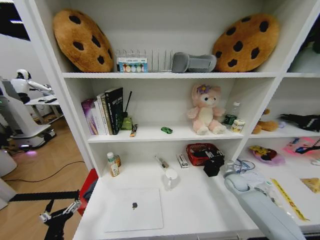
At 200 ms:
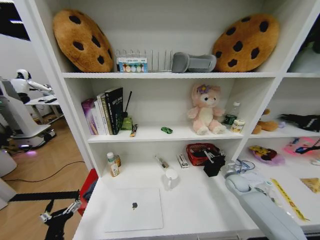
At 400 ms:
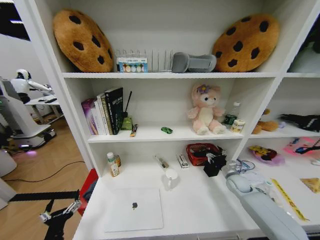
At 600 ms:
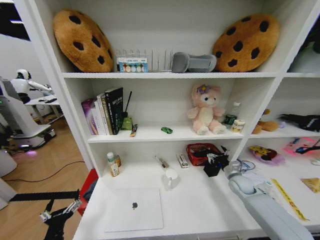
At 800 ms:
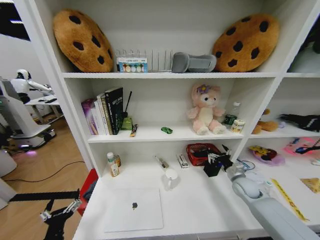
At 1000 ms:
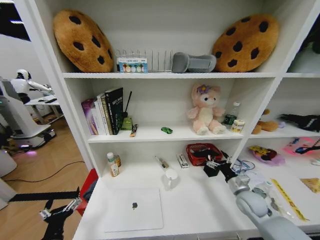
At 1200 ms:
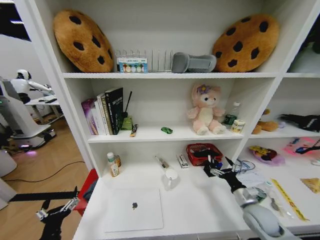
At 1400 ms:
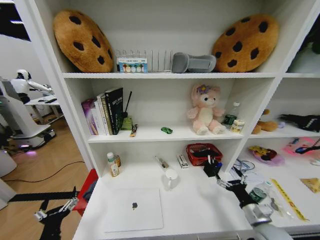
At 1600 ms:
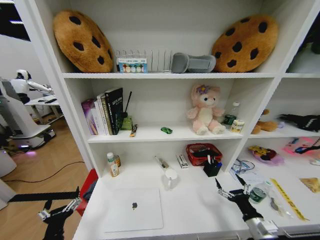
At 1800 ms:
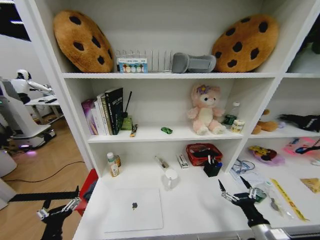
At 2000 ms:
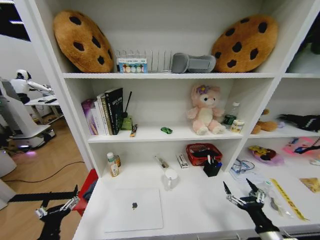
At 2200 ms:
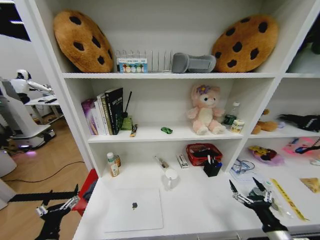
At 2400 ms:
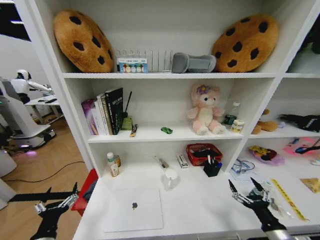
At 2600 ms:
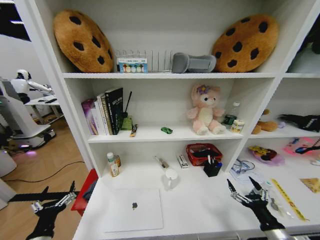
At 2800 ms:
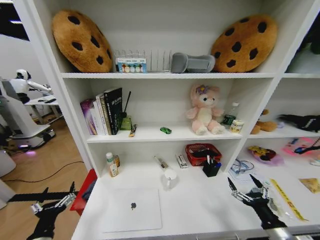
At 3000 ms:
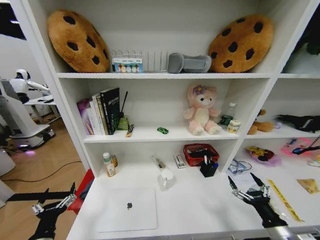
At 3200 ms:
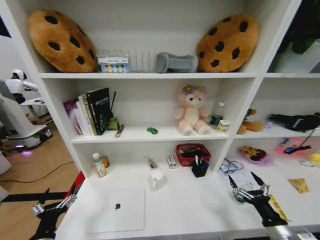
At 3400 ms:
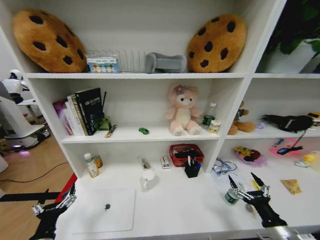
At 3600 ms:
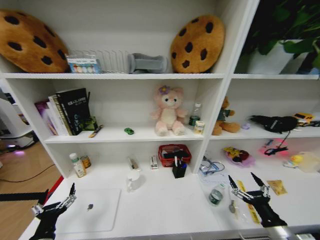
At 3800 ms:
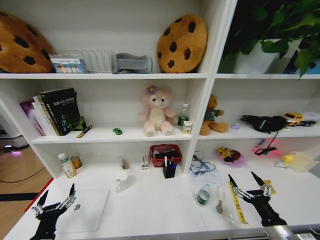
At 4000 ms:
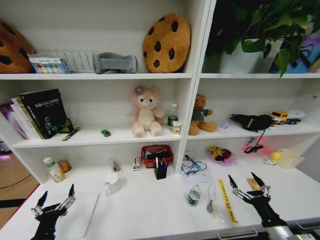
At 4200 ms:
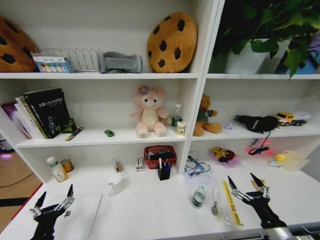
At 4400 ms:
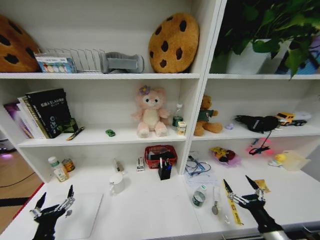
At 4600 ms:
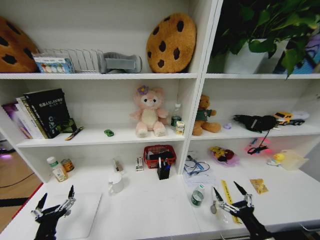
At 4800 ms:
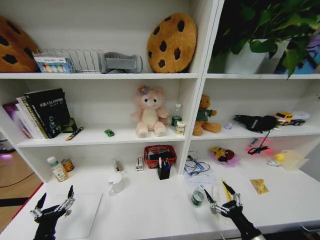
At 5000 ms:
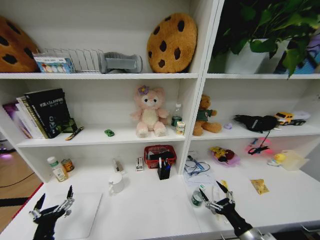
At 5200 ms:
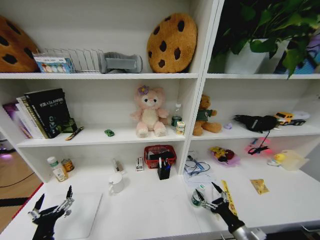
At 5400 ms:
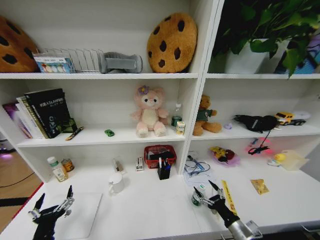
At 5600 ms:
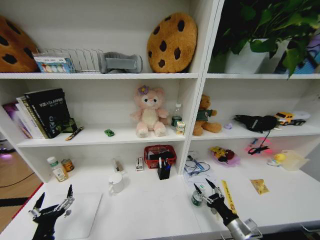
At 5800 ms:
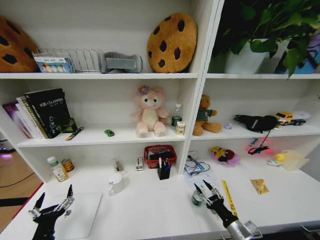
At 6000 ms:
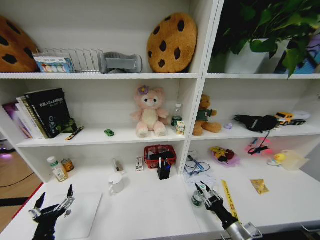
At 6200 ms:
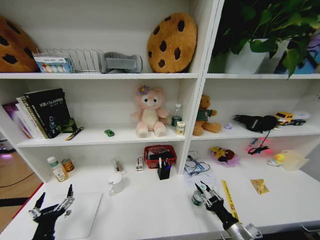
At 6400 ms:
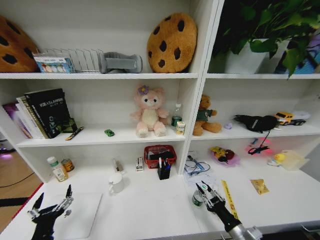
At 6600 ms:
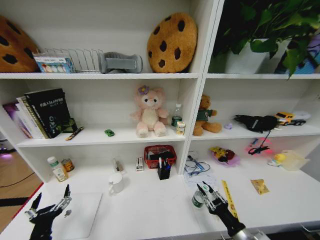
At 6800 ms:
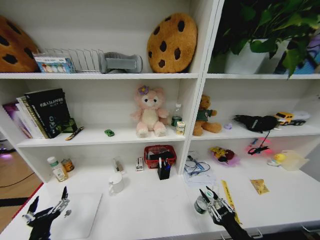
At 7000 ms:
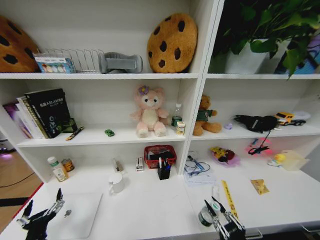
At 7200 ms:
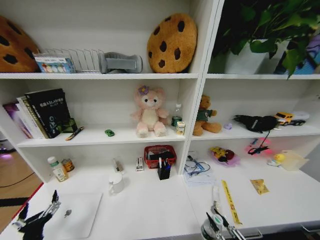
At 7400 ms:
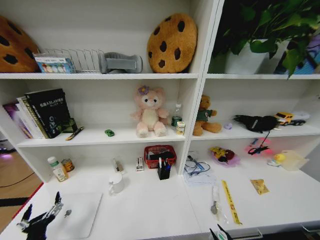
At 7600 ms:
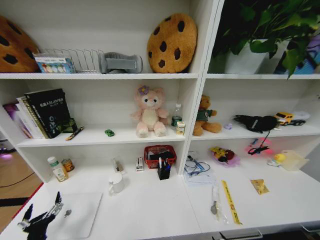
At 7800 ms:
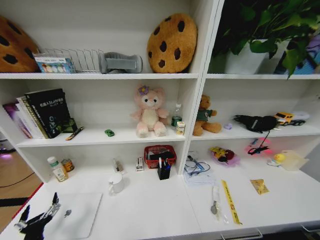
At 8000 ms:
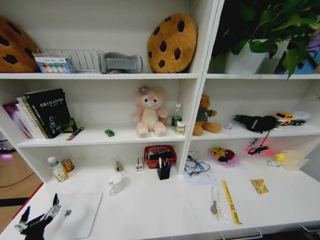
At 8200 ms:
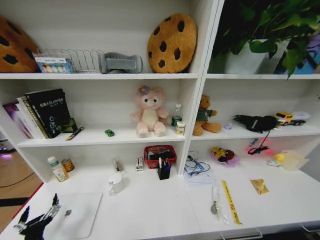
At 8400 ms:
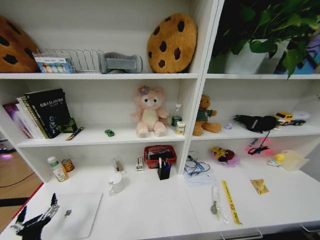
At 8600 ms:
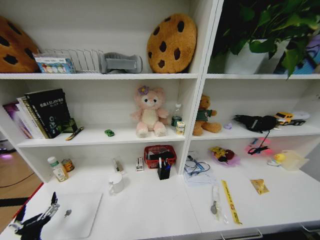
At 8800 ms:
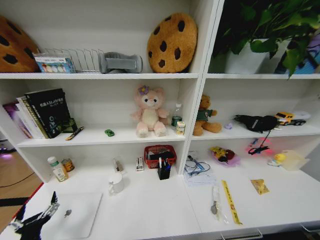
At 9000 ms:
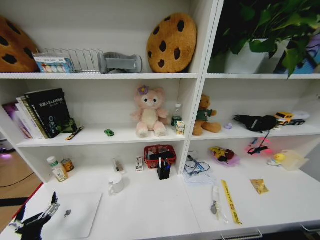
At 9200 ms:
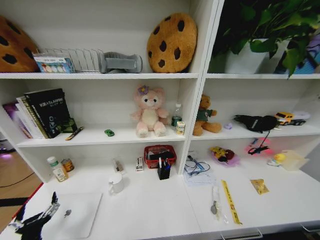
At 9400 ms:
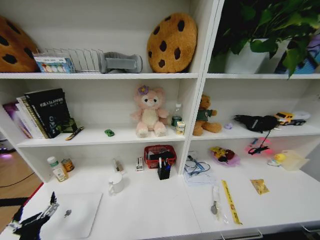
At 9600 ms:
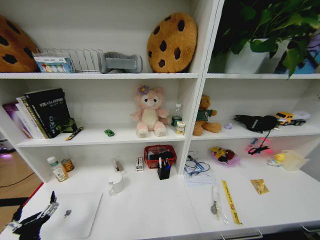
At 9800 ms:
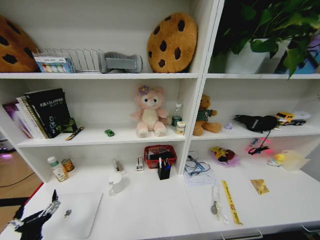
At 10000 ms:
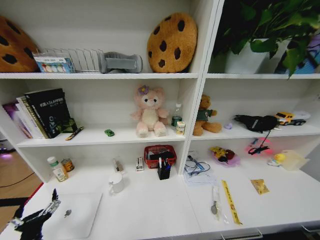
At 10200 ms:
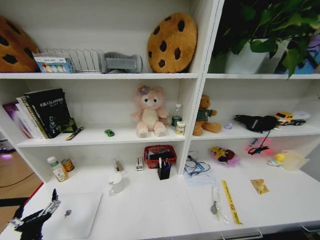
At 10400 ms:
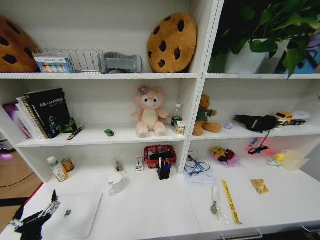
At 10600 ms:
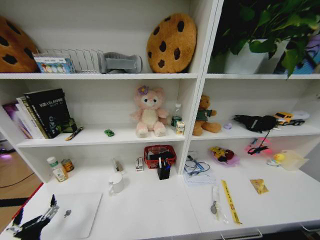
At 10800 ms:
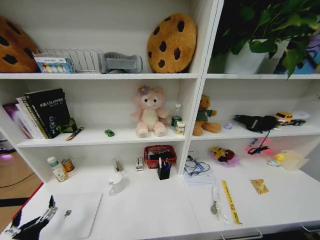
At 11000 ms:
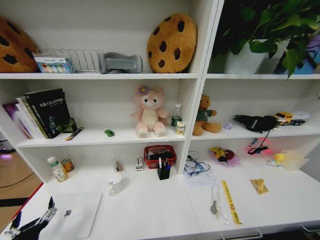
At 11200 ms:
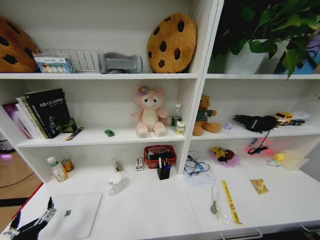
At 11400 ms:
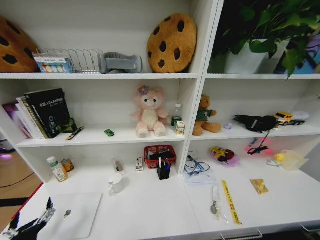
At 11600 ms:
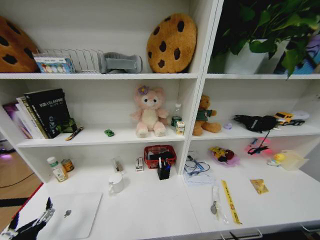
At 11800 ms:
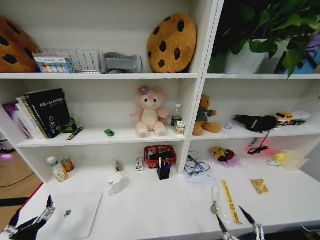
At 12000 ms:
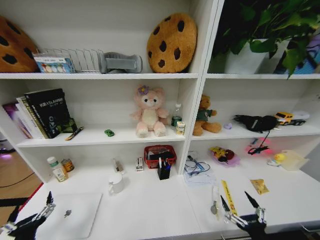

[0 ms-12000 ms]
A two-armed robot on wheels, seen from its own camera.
Task of the whole recording: Organize the objects on the table.
0 ms to 1600 ms: The right gripper goes roughly 25 cm backward, and opens up.
1600 ms to 3000 ms: The right gripper ends up roughly 5 cm from where it was.
4400 ms to 6000 ms: The right gripper moves downward and to the left, about 5 cm, and closes up.
6000 ms to 7600 ms: The right gripper travels backward by approximately 20 cm. Meanwhile the left gripper changes place by about 5 cm.
10400 ms to 12000 ms: The right gripper shifts about 30 cm upward.

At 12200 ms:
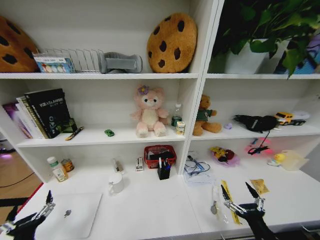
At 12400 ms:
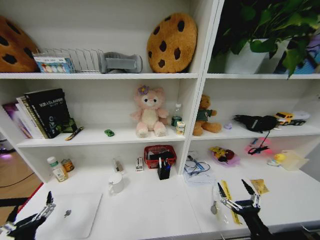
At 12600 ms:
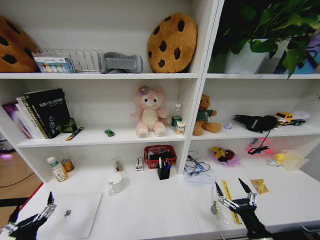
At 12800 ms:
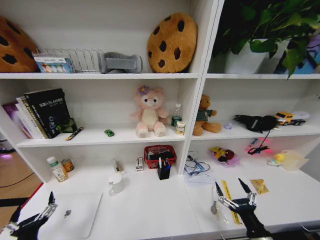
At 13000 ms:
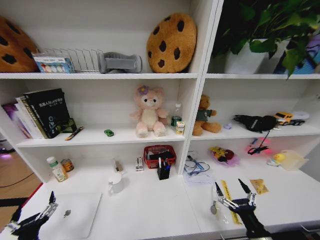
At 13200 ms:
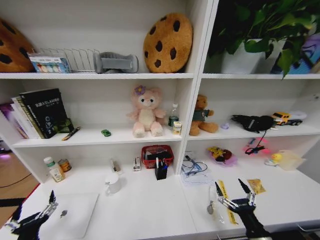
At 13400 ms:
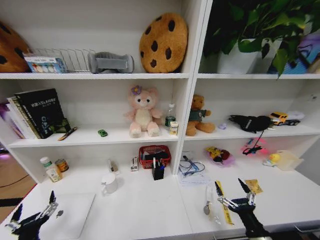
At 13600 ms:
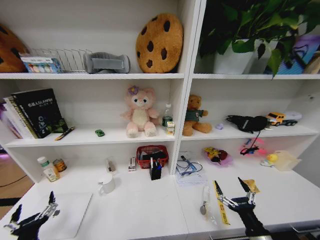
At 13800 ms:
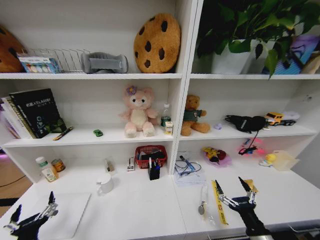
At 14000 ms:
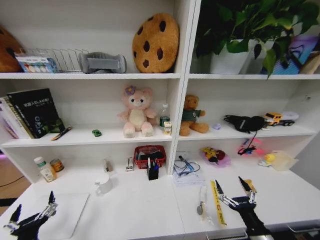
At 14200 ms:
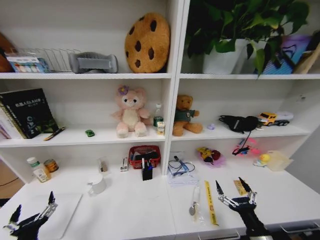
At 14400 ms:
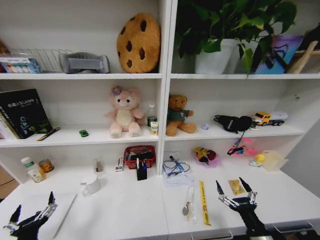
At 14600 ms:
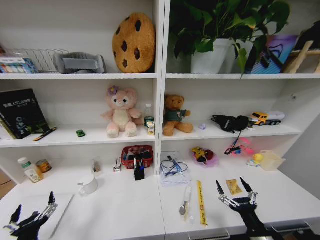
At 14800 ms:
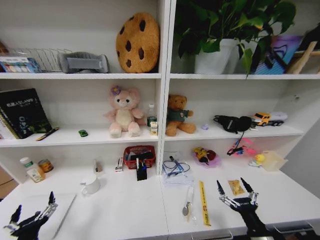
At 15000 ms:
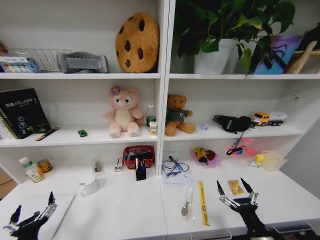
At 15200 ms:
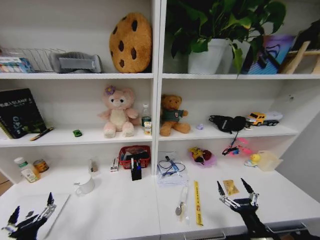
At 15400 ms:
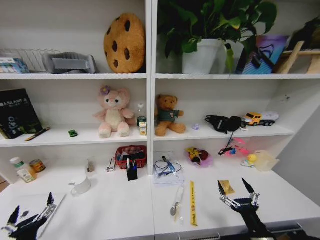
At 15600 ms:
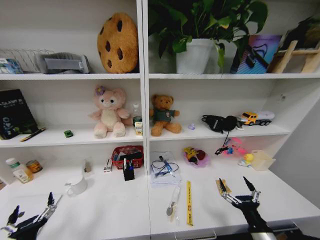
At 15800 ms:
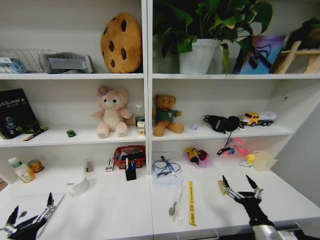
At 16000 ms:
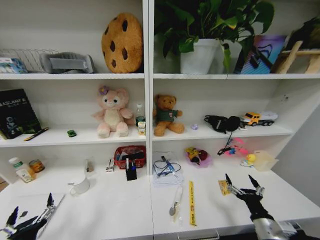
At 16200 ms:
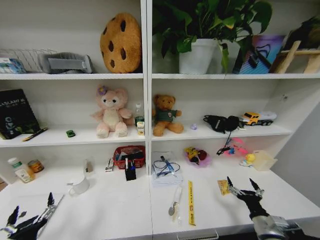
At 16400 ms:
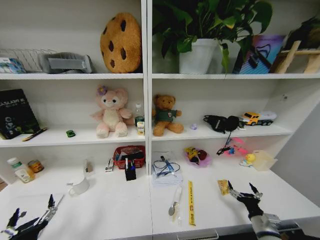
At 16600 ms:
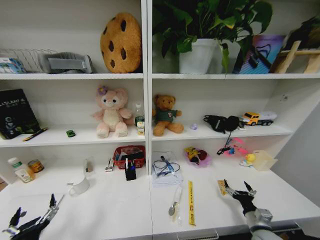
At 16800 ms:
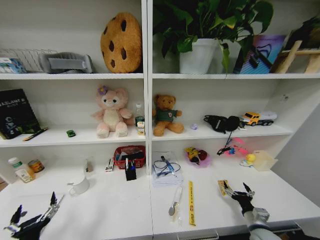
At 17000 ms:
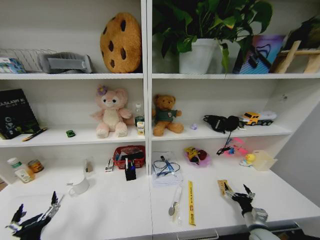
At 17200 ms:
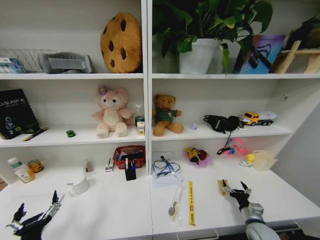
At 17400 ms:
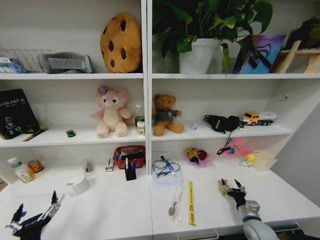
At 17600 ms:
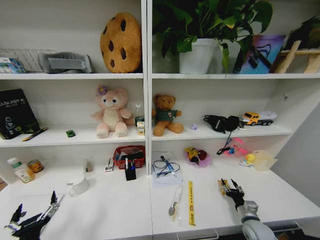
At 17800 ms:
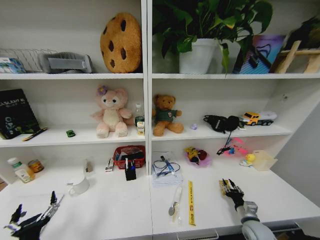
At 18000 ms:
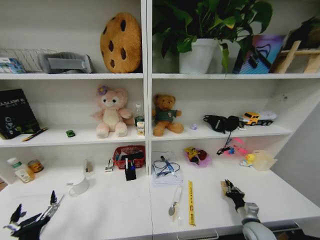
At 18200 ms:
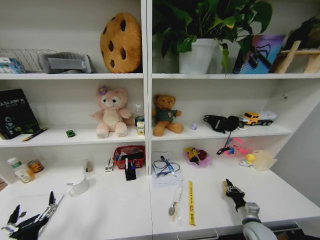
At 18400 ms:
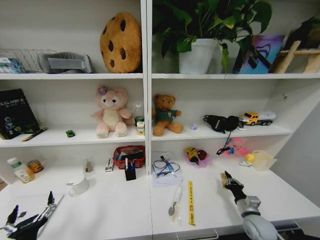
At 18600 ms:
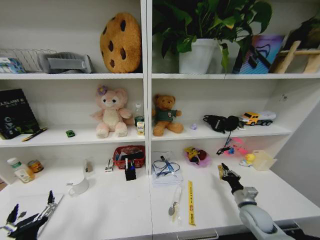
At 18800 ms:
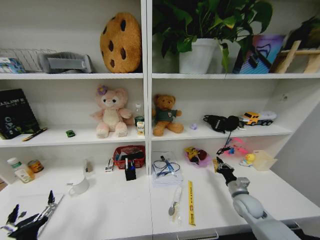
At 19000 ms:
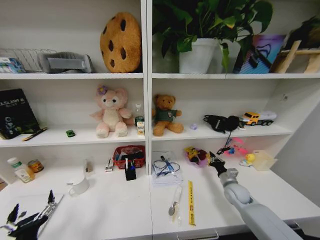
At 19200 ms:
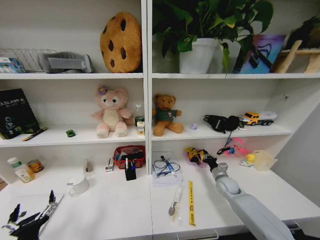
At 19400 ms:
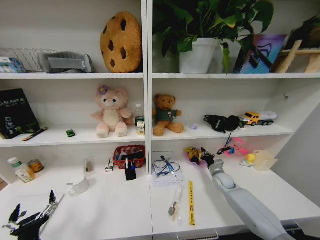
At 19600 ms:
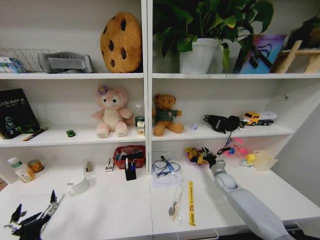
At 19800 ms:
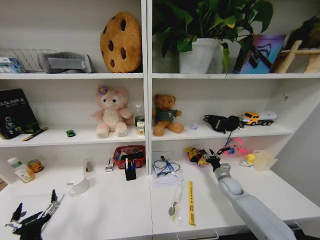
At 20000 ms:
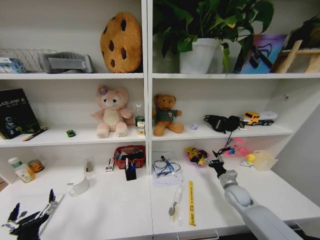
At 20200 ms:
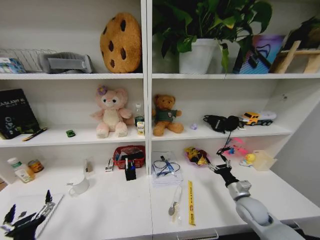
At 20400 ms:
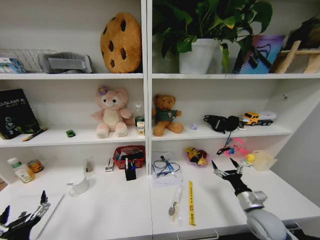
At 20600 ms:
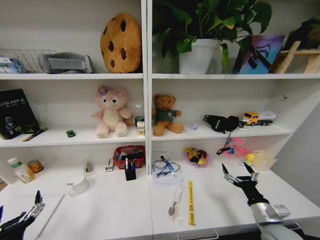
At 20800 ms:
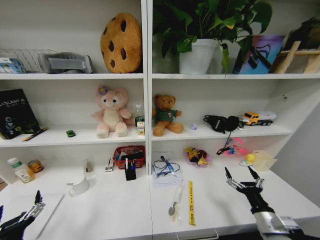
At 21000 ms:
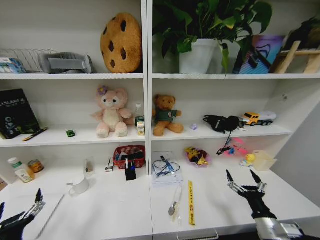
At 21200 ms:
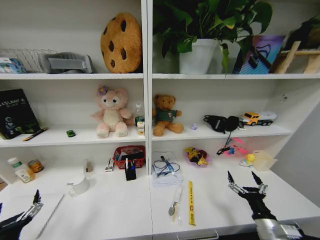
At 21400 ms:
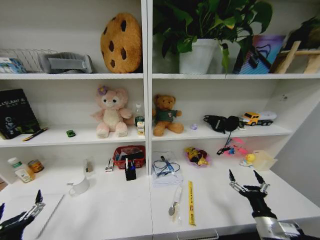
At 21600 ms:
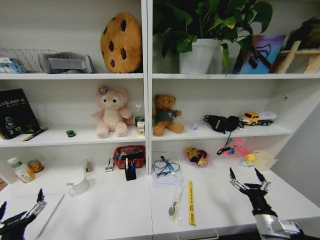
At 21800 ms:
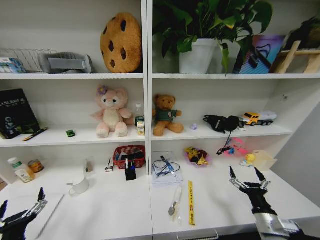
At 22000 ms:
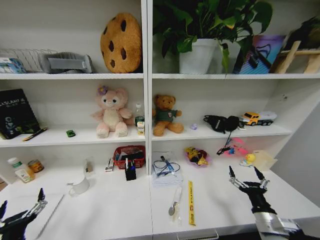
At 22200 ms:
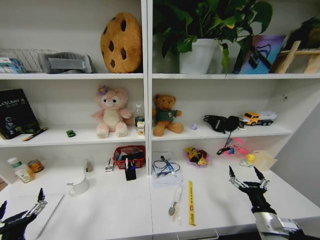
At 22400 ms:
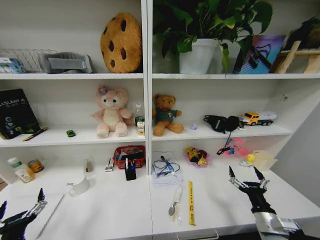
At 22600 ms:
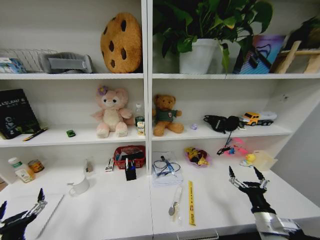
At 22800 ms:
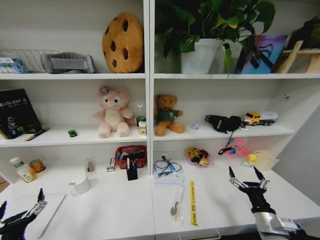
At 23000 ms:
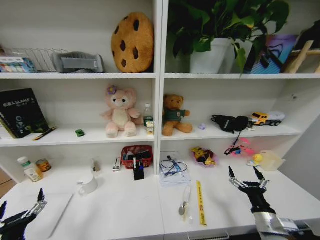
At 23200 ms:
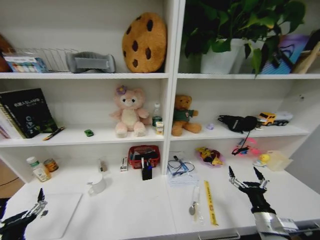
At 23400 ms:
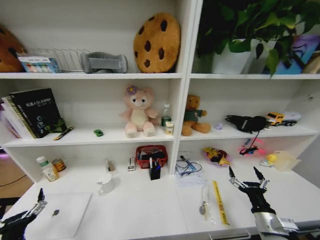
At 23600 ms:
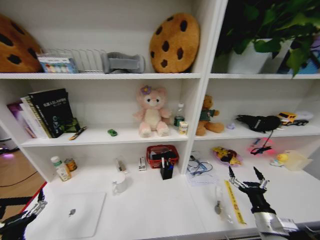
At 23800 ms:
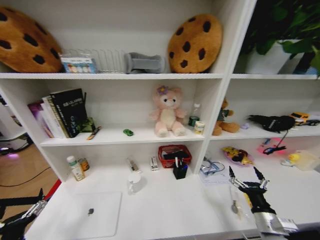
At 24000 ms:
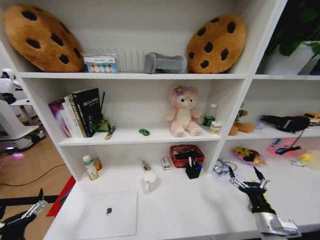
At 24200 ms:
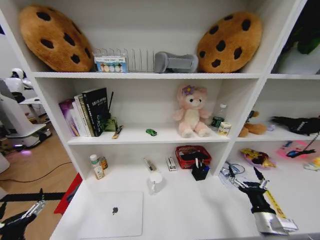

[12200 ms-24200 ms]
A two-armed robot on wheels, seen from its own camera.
Task of the whole recording: Organize the objects on the table.
15200 ms to 16600 ms: The right gripper heads forward, to the right and downward, covering about 15 cm.
16600 ms to 18200 ms: The right gripper closes its fingers.
18200 ms to 19800 ms: The right gripper heads forward, covering about 20 cm, and opens up.
19800 ms to 21200 ms: The right gripper heads backward, covering some 25 cm, and opens its fingers, while the left gripper travels to the left by approximately 5 cm.
21200 ms to 22600 ms: The grippers stay close to where they were, moving slightly.
